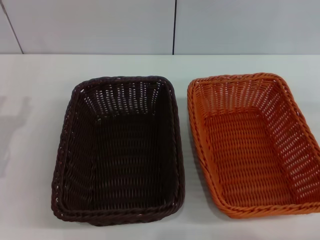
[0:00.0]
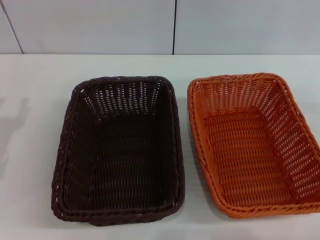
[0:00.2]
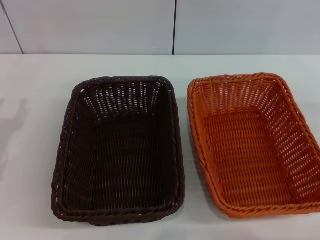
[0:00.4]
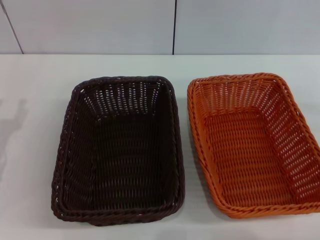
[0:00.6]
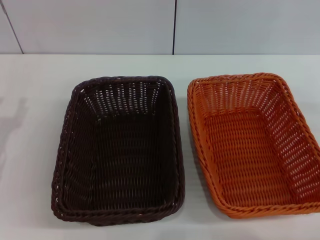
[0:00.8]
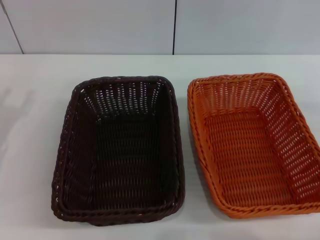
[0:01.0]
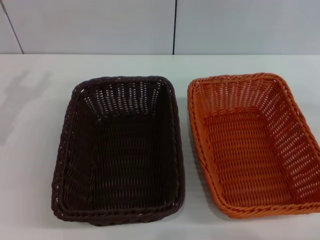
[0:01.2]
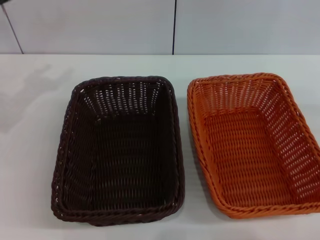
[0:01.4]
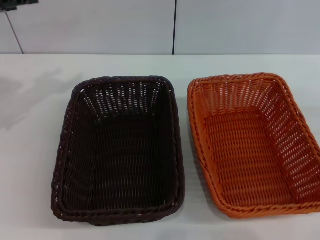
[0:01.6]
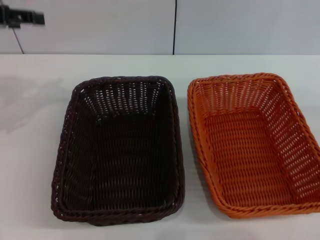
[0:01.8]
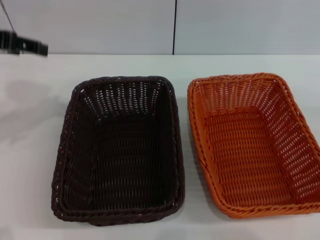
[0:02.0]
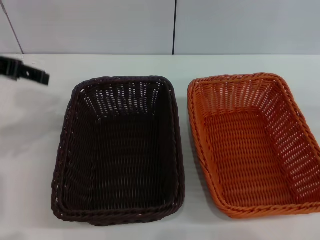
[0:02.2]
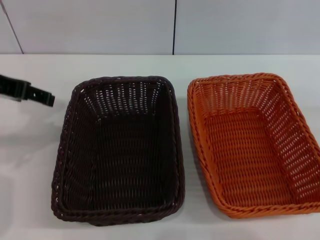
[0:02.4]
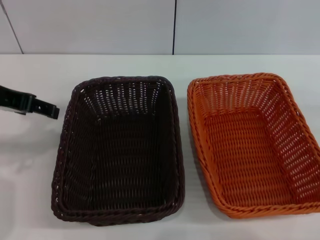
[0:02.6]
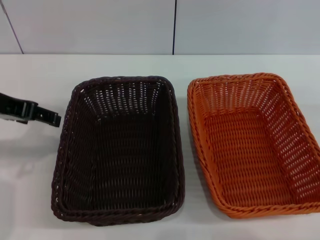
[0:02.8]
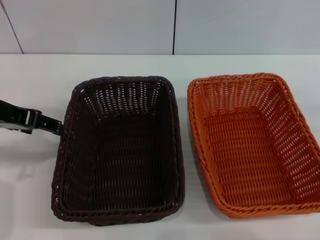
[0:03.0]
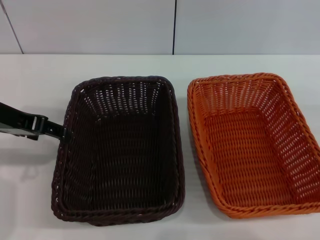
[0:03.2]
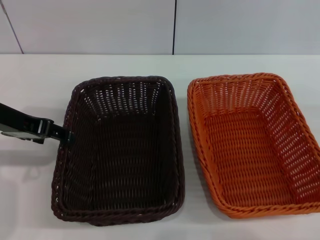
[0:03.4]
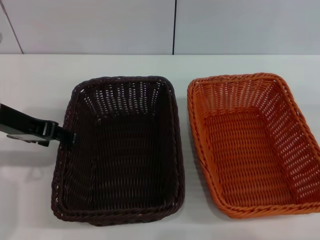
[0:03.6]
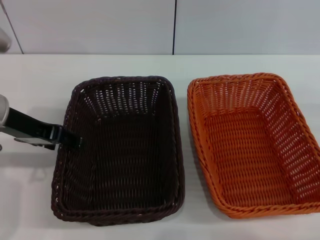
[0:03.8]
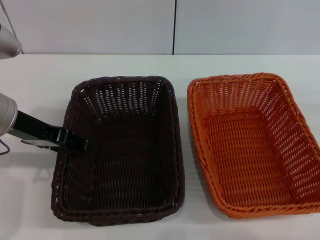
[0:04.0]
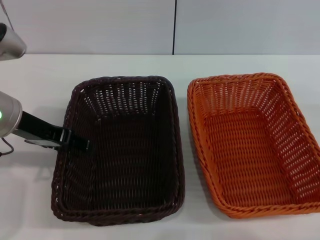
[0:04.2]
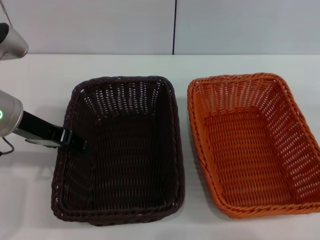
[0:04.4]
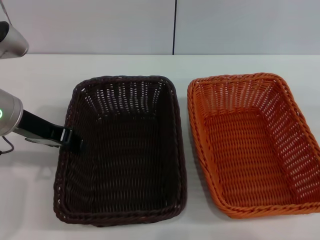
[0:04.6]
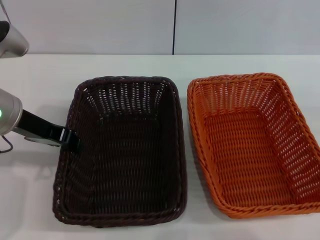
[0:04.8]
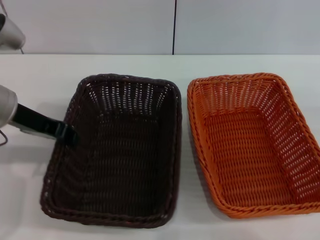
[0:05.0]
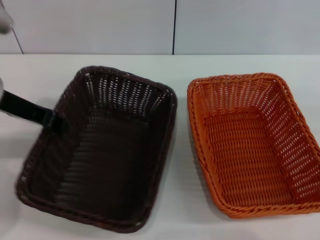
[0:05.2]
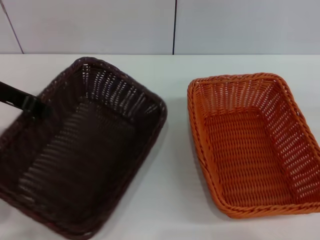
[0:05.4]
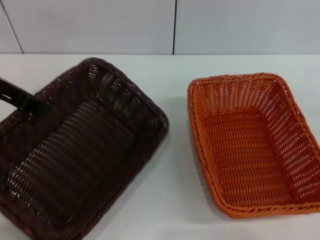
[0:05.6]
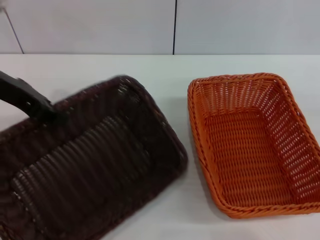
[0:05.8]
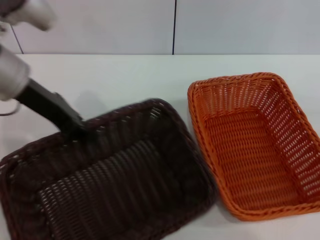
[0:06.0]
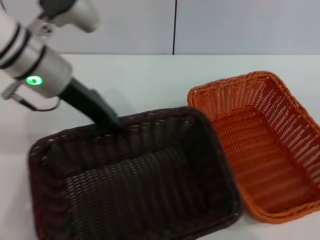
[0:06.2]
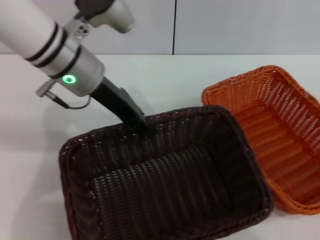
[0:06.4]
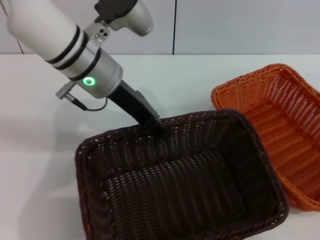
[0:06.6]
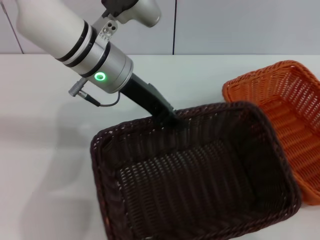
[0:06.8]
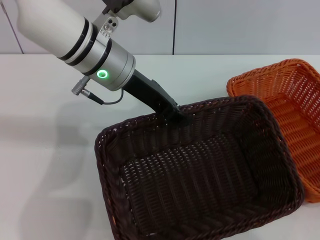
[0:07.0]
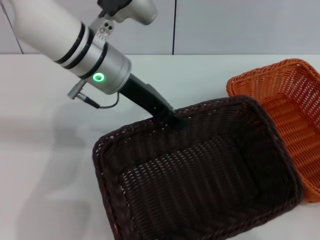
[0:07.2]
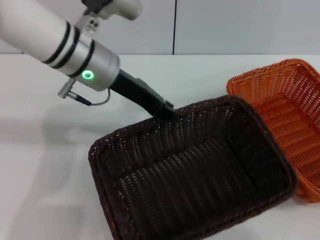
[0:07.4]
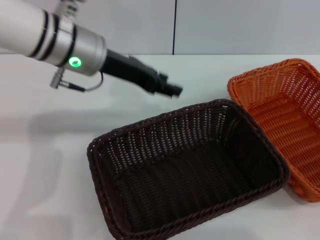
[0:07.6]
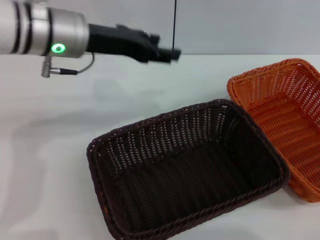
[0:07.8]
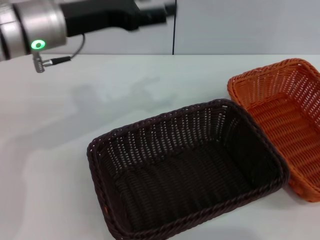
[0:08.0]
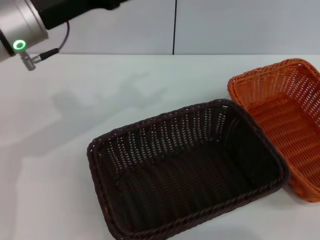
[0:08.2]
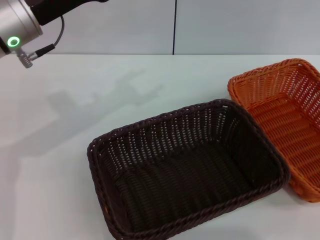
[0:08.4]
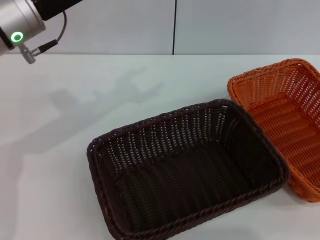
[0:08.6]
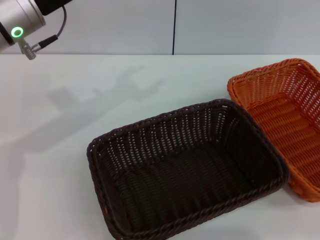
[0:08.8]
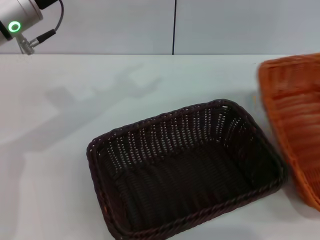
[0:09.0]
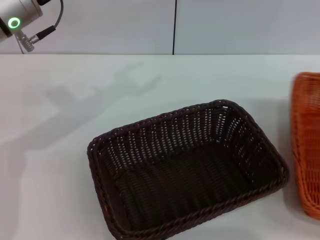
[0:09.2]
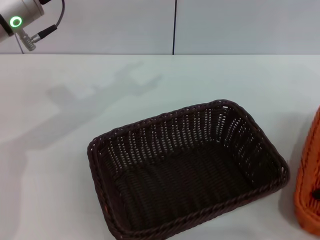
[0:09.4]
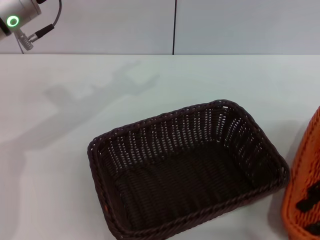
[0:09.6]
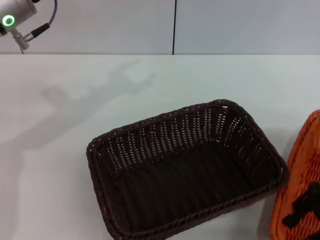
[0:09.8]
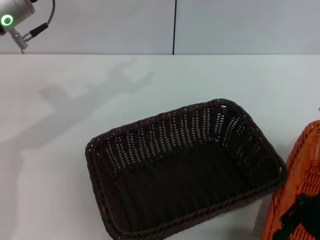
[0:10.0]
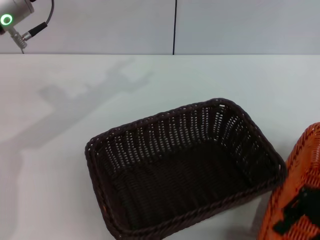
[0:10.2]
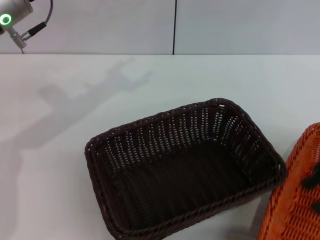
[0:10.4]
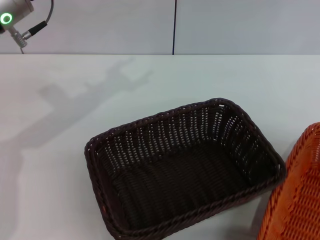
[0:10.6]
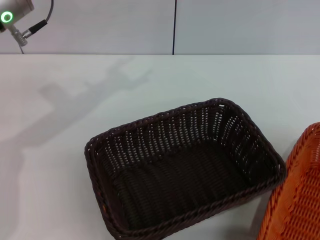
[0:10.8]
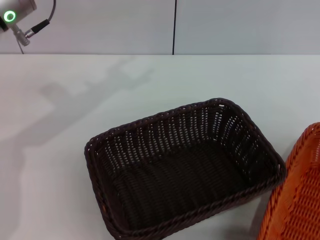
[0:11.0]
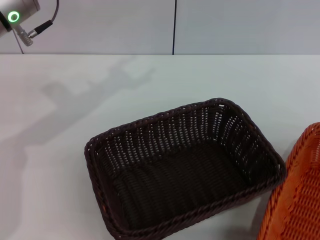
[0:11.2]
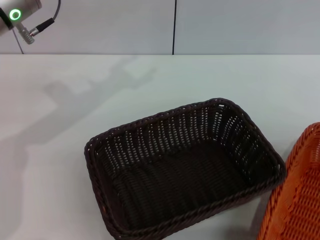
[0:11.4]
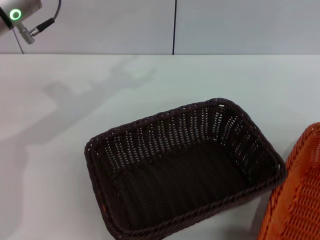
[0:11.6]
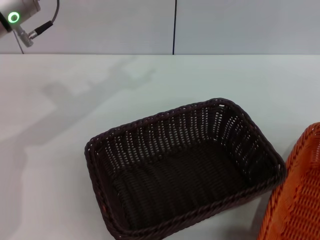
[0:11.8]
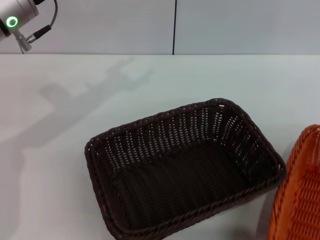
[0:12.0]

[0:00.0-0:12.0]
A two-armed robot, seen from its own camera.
Step, 0:00.0 to 0:05.2: Pick up the dark basket with the left gripper.
Step, 0:05.4 to 0:07.4: Place the dark basket in the center of view with the left gripper.
0:01.6 to 0:03.0: The left gripper goes approximately 10 cm to the right and backward.
0:03.0 to 0:04.4: The left gripper changes place by roughly 5 cm.
0:04.4 to 0:06.0: The left gripper moves roughly 5 cm, and closes.
0:06.0 to 0:07.6: The left gripper moves to the right, some 10 cm, and opens.
0:07.6 to 0:09.0: The right gripper moves upward, about 10 cm; the left gripper moves to the left, about 5 cm, and opens up.
0:09.0 to 0:10.4: The right gripper goes some 5 cm to the left.
0:10.4 to 0:12.0: The right gripper is displaced to the right by roughly 10 cm, and closes up.

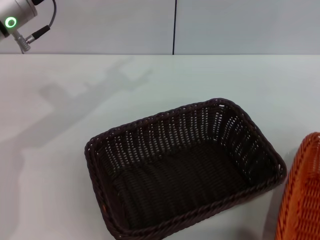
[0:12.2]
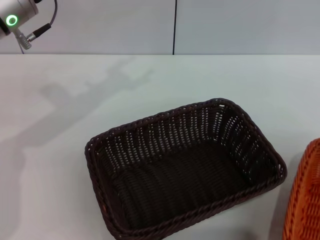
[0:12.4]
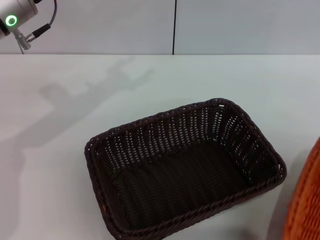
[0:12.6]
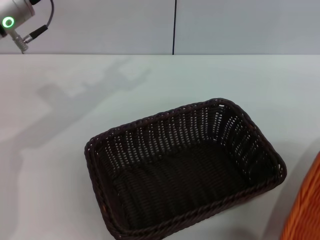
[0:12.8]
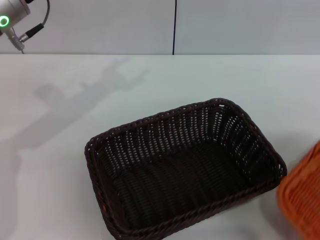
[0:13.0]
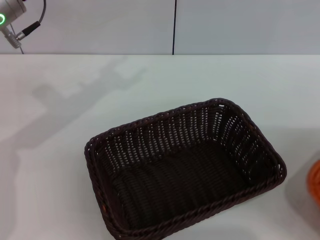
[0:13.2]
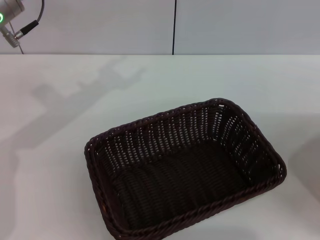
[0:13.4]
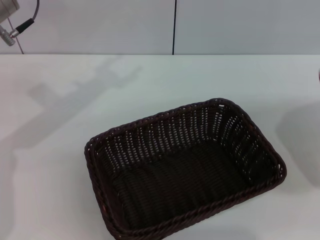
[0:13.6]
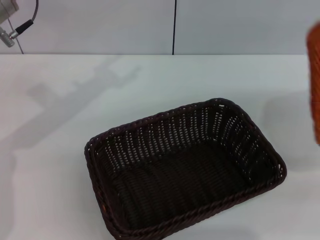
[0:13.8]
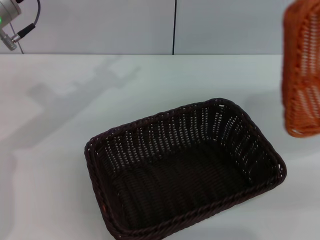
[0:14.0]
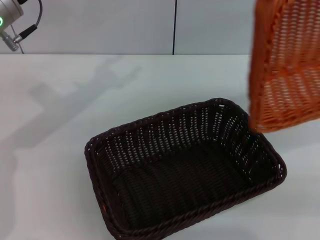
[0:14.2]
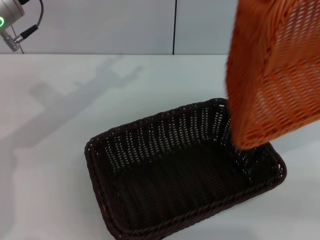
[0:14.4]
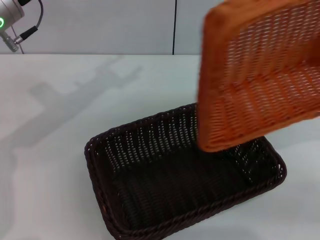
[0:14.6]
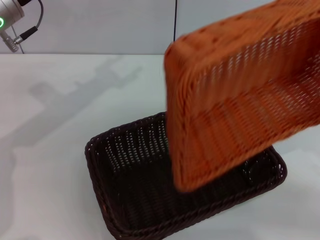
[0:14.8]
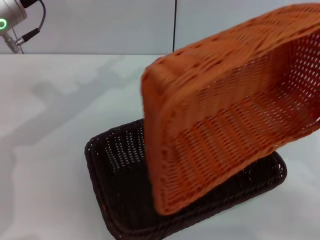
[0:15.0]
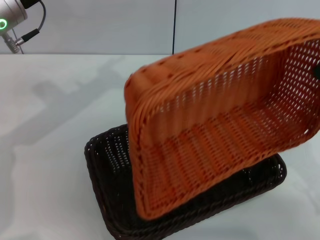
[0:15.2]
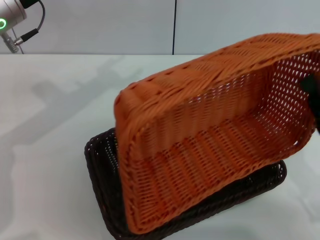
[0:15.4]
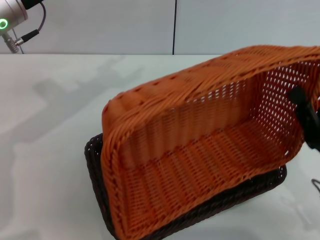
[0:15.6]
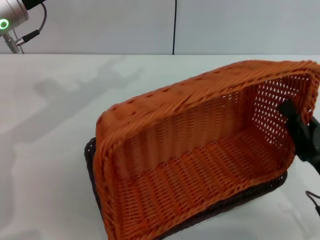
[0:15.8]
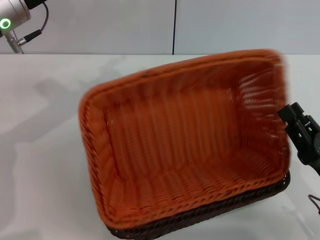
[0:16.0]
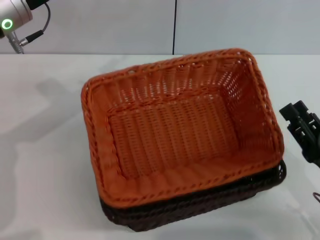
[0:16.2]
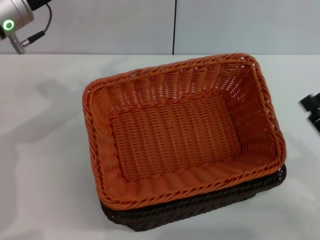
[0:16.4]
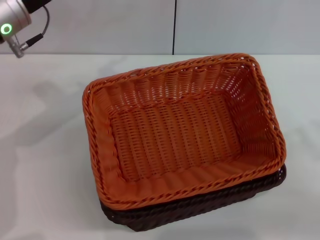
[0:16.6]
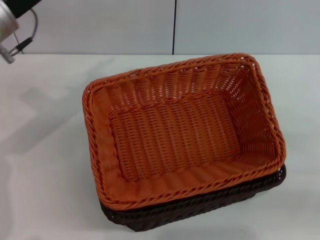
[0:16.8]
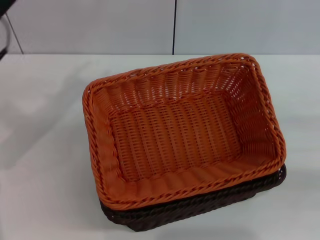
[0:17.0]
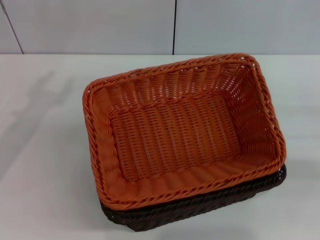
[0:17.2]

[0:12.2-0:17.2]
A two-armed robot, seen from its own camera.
Step, 0:12.6 to 0:16.2: Place the light basket on the dark basket with the right gripper.
0:12.2 to 0:13.8: The right gripper heads to the right, backward and upward, covering roughly 15 cm.
0:13.8 to 0:15.6: The right gripper travels to the left and downward by approximately 30 cm.
0:15.6 to 0:17.2: The right gripper travels to the right, forward and upward by approximately 20 cm, and opens. The left gripper moves backward, to the left and downward, approximately 10 cm.
